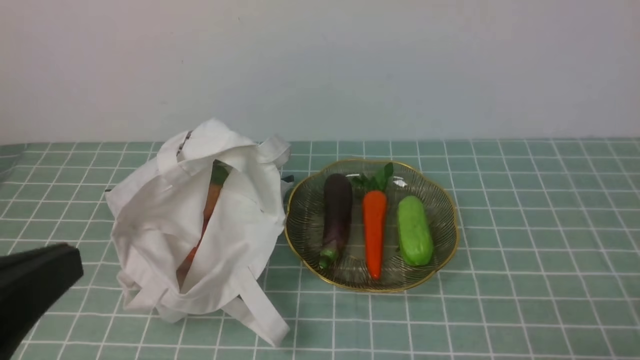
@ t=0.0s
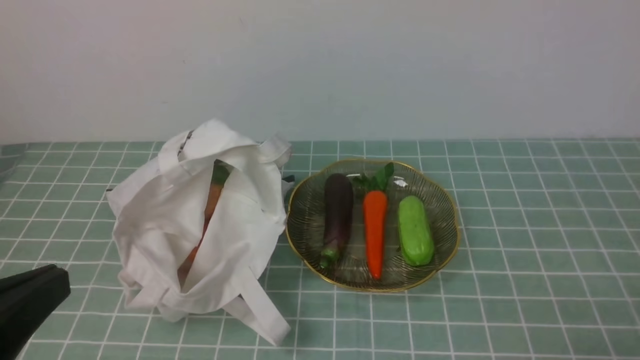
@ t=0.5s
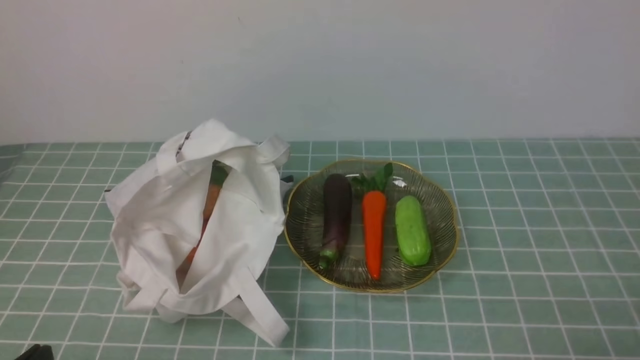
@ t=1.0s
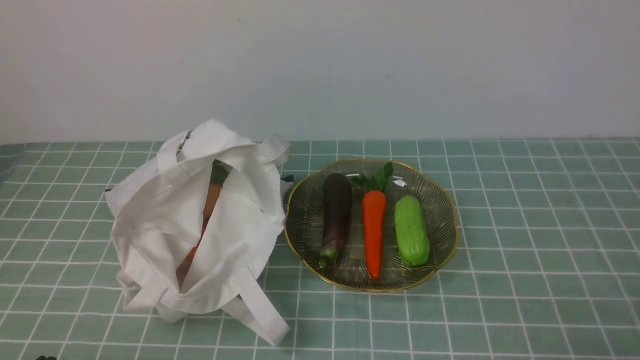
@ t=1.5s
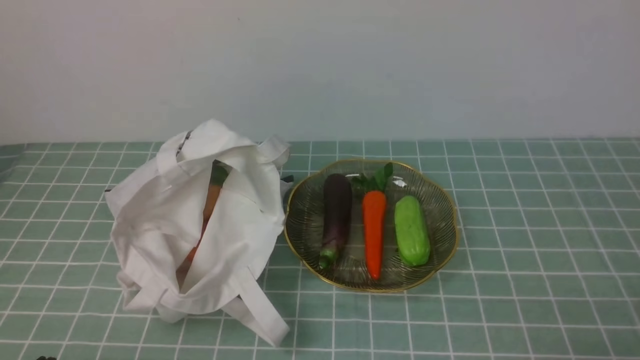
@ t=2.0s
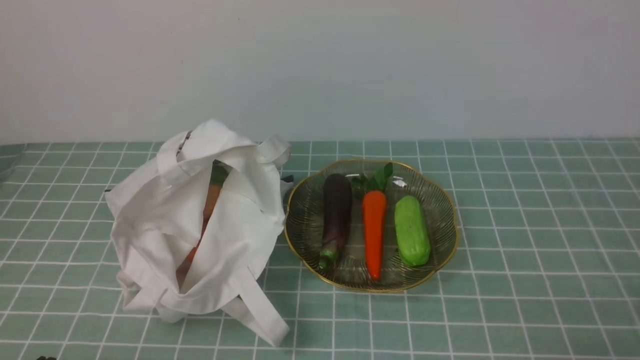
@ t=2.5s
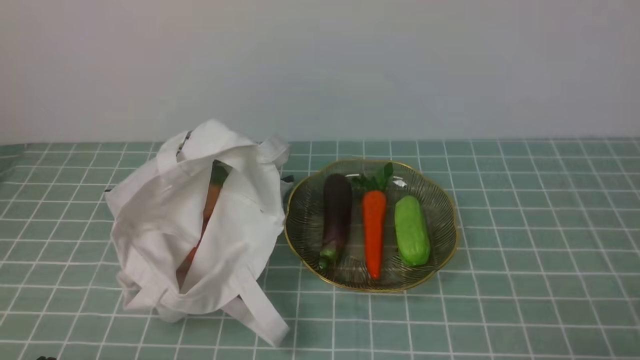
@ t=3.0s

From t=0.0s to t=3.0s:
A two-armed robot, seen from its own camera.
Task of the whole recording: take vegetables from cloth bag on blue coffee tablecloth place on plate.
From t=0.0s to t=1.5s: The left gripper heads downward, covering about 15 cm.
From t=1.5s to t=3.0s: Both grippers stay about where they are.

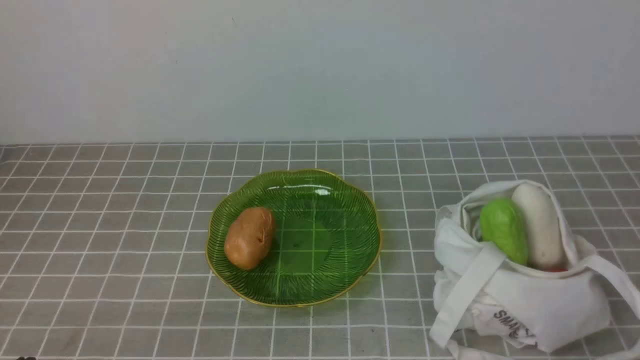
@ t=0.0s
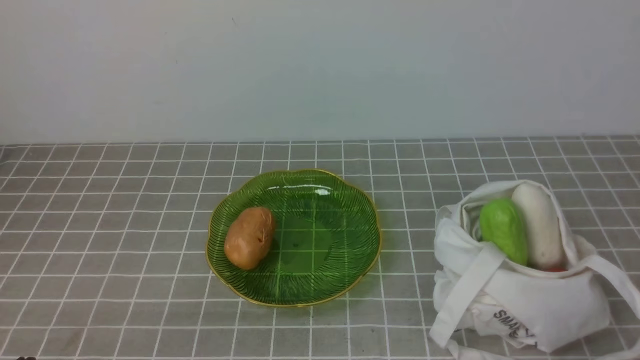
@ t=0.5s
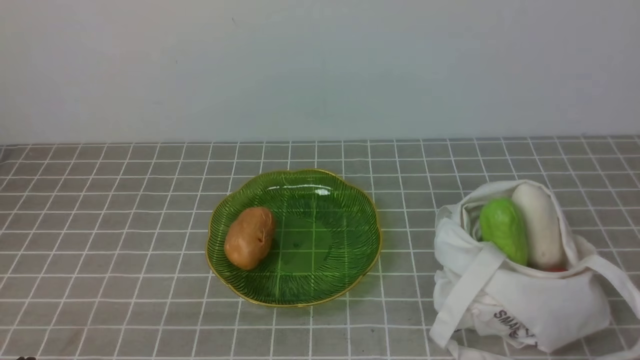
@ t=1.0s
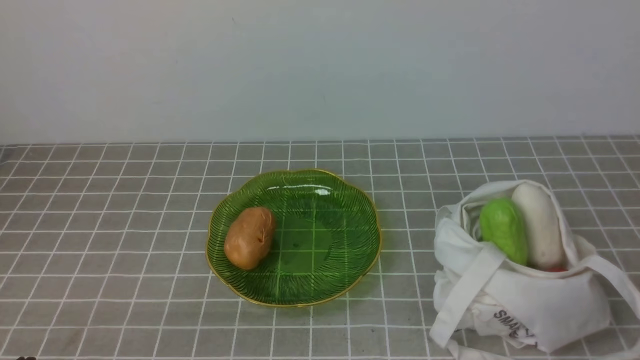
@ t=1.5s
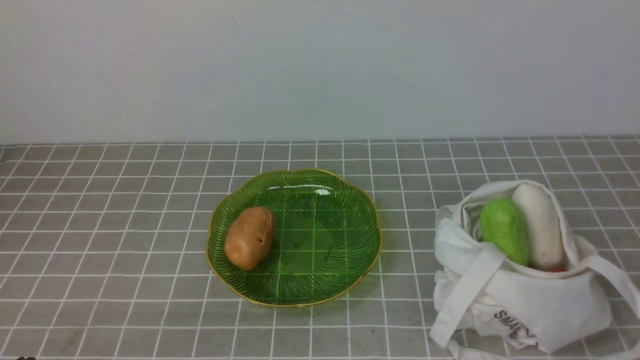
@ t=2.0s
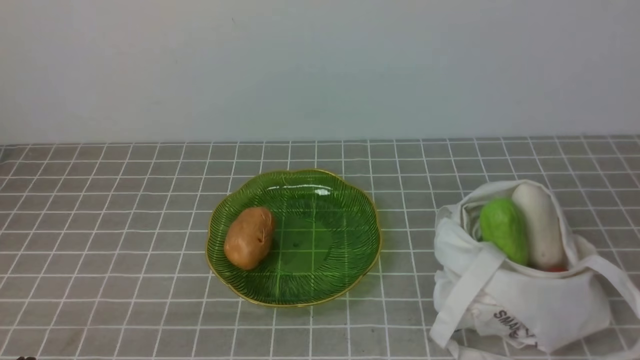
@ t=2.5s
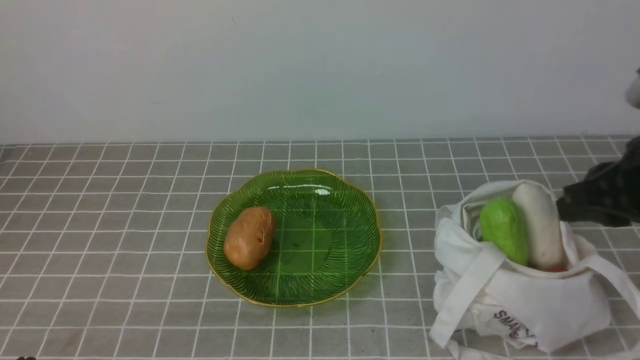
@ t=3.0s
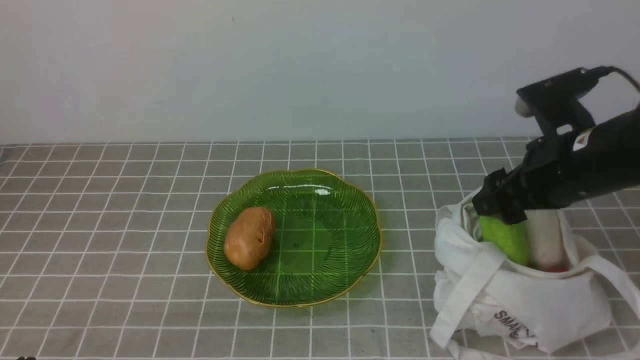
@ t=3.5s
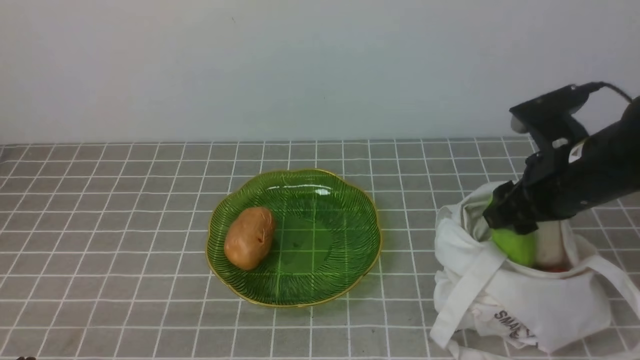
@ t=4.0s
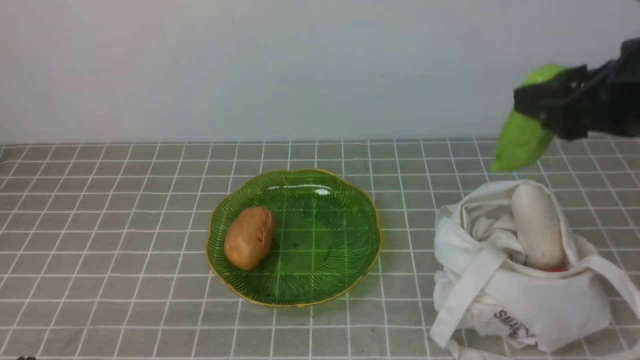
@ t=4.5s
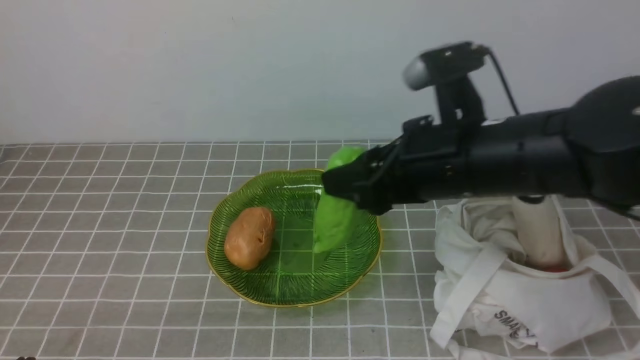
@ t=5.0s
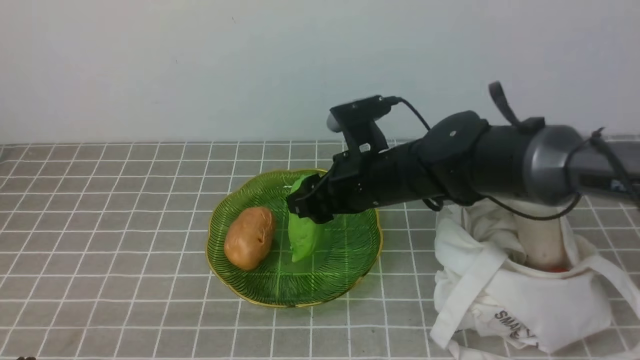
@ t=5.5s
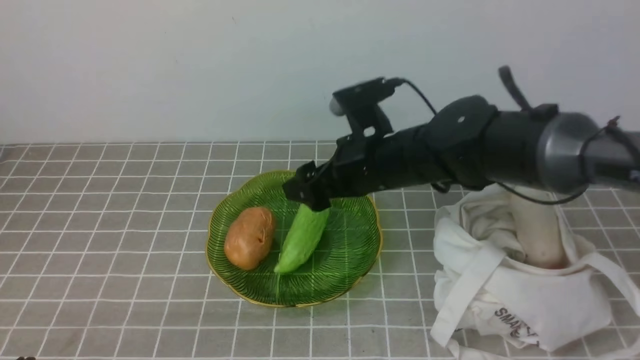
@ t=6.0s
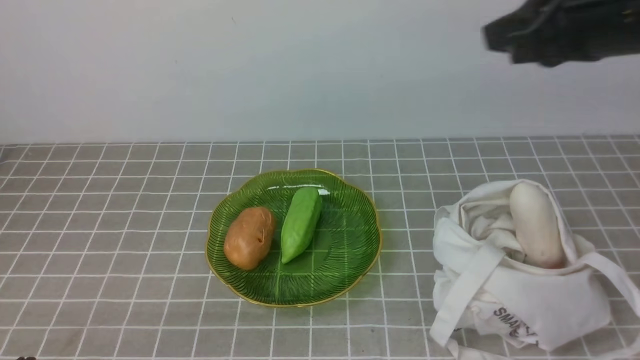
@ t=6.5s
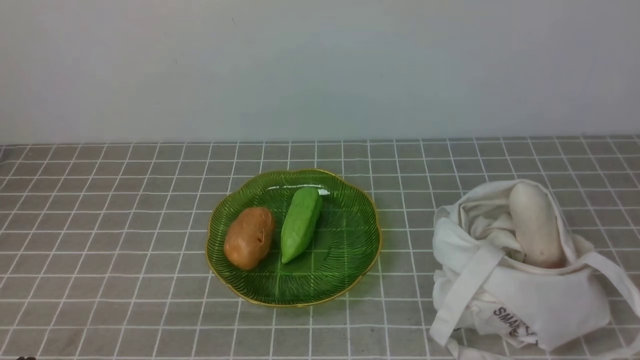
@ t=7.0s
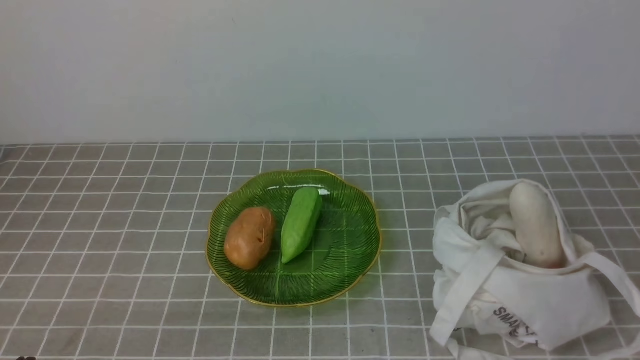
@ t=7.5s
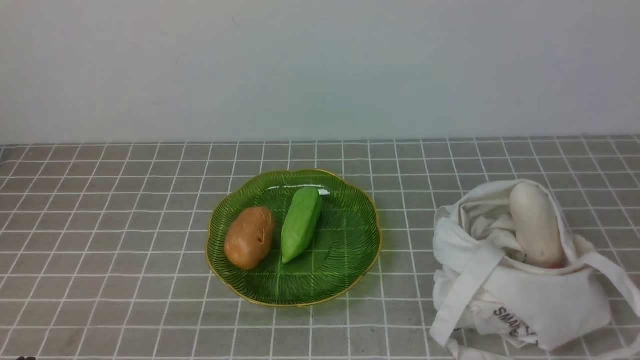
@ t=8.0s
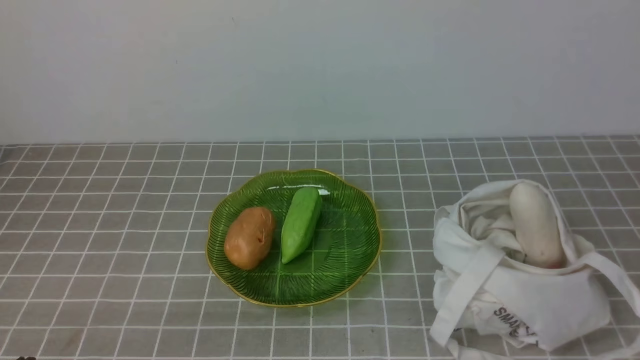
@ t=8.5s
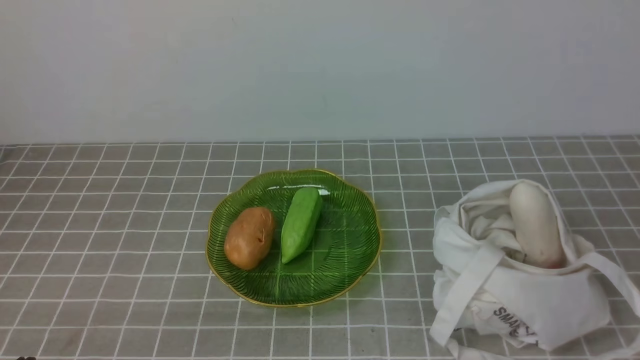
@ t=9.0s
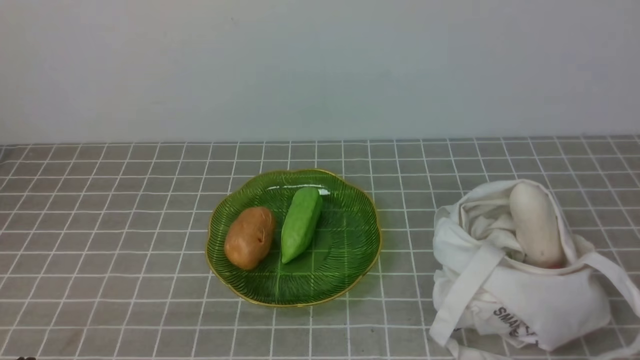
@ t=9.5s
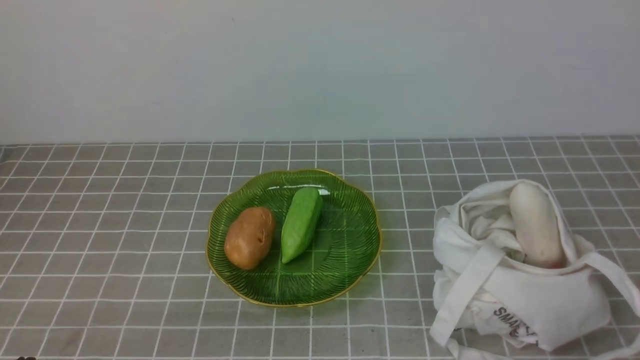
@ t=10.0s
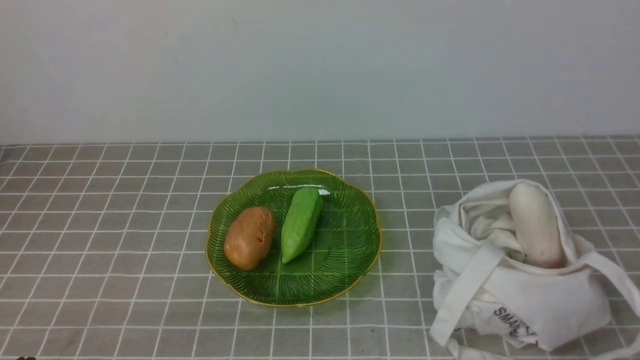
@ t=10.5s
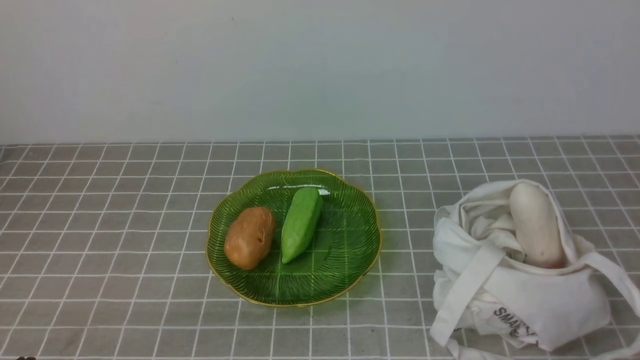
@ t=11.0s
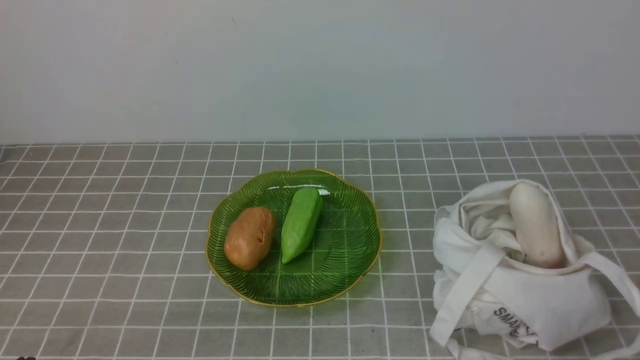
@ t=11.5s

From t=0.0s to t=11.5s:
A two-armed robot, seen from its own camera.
Task of the whole recording: take vegetables from bag on grey coffee tablecloth place on plate.
Step, from t=0.0s to t=3.5s: Grasp the bitter melon with right gripper.
Step, from t=4.0s to t=6.0s: Place the bitter melon on the plate with right gripper.
From t=2.0s to t=4.0s: The right gripper is displaced forward and to the left by some 25 cm, and opens up.
From t=4.0s to t=6.0s: The right gripper goes some 15 cm to the left.
From t=6.0s to t=7.5s: The right gripper is displaced backward, to the right and upward by about 35 cm, and closes.
From t=9.5s to t=11.5s: Both grippers stay about where they are.
